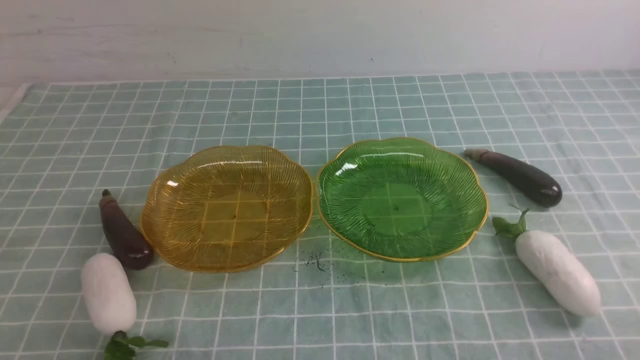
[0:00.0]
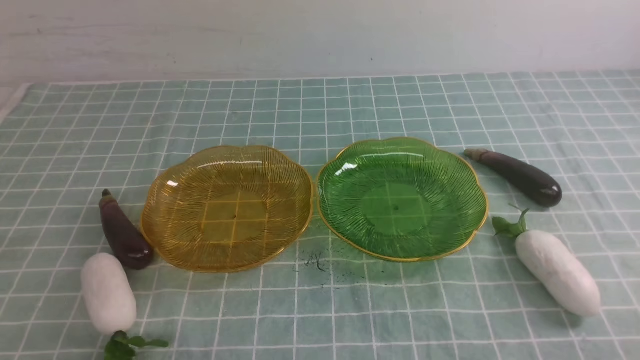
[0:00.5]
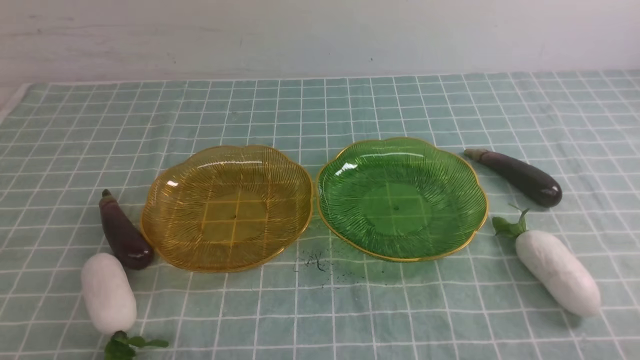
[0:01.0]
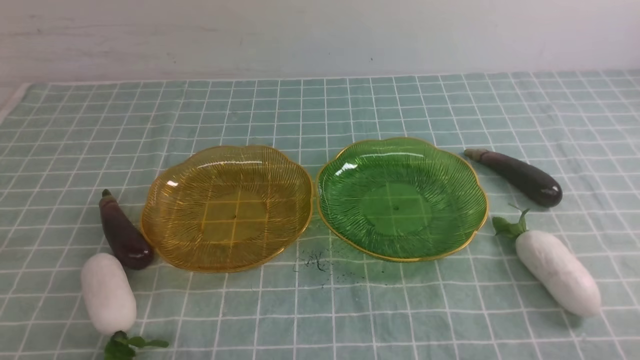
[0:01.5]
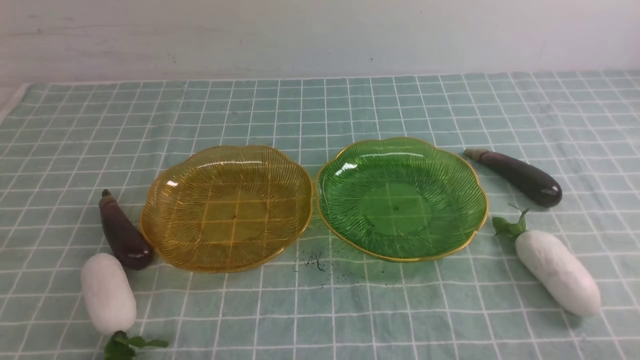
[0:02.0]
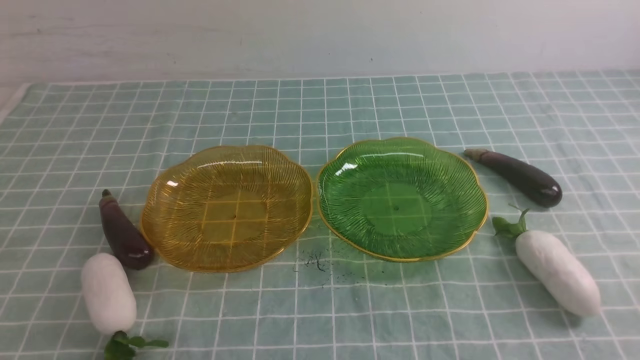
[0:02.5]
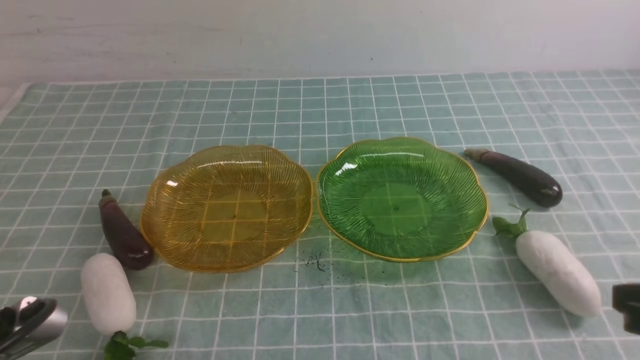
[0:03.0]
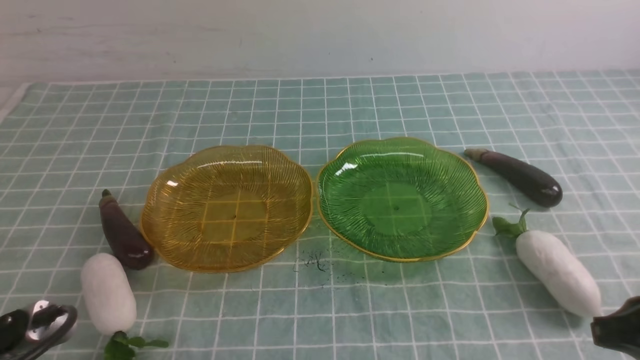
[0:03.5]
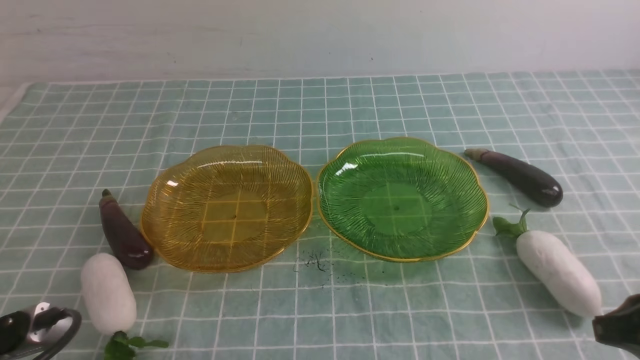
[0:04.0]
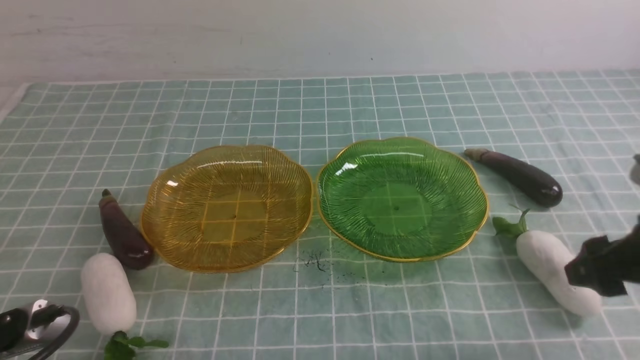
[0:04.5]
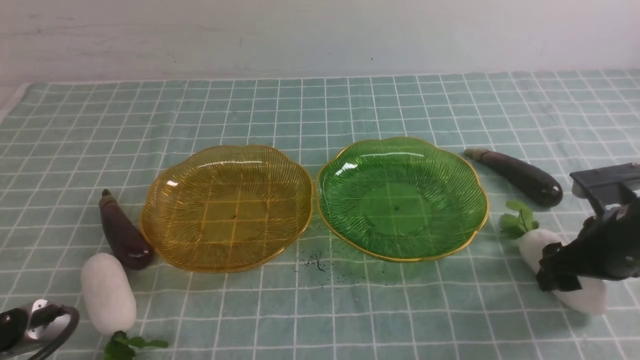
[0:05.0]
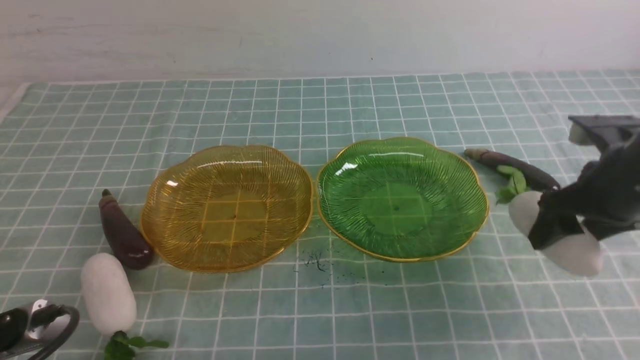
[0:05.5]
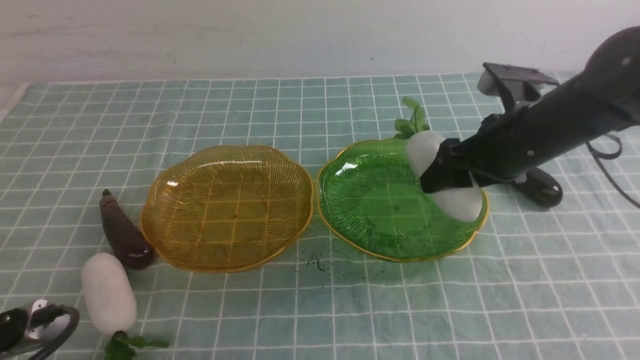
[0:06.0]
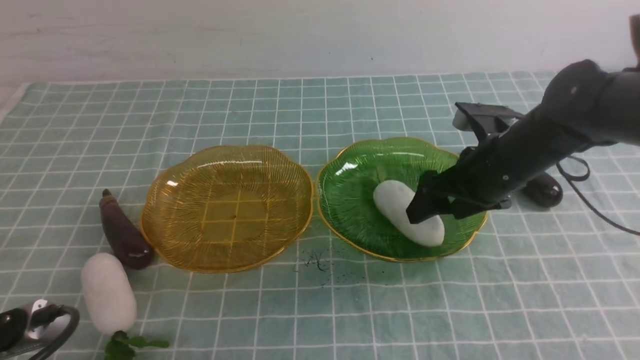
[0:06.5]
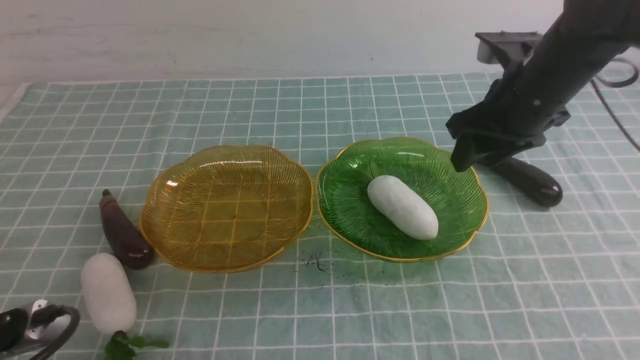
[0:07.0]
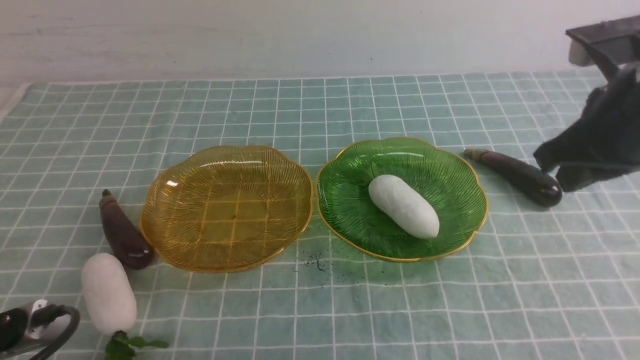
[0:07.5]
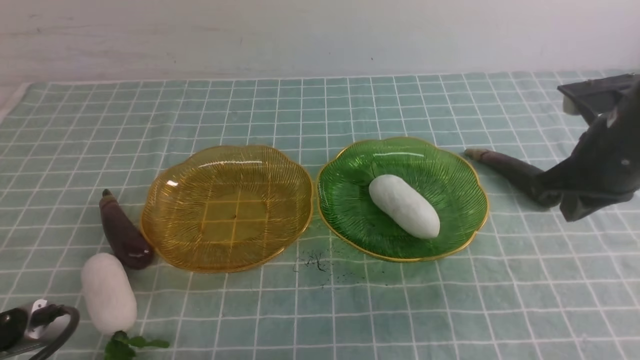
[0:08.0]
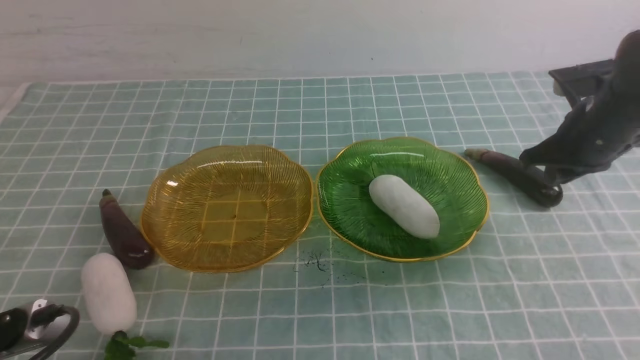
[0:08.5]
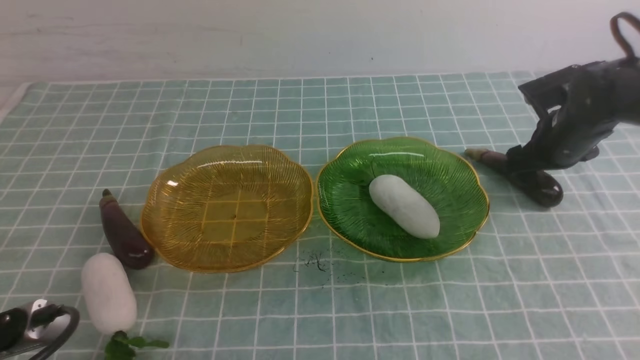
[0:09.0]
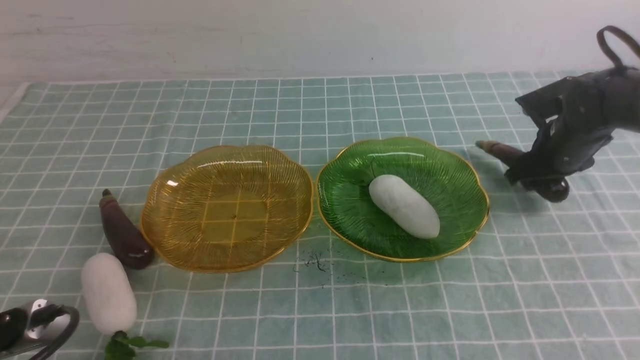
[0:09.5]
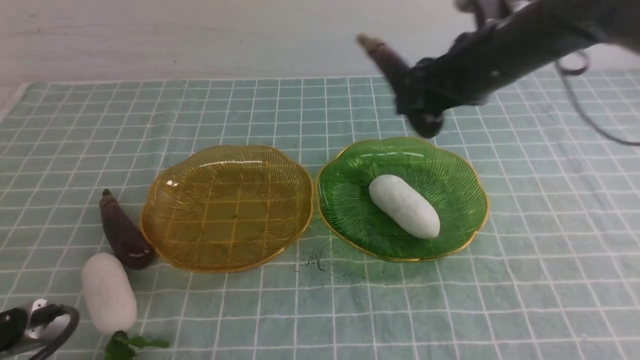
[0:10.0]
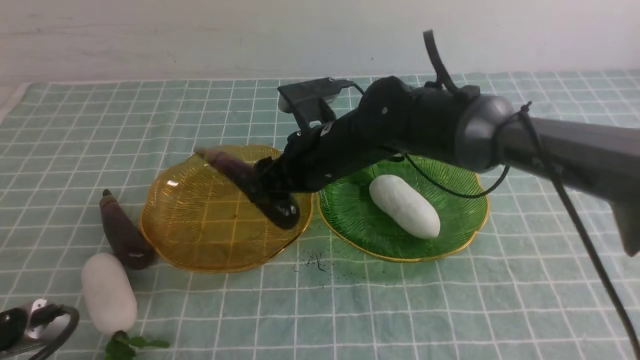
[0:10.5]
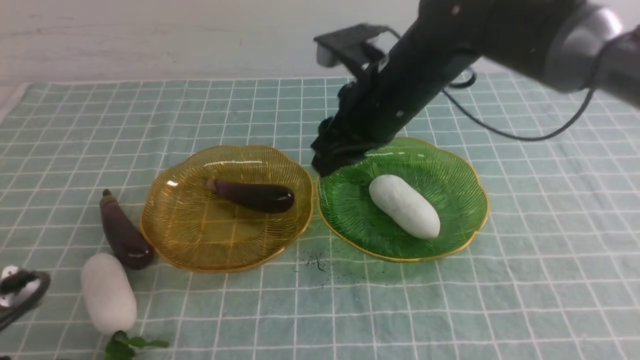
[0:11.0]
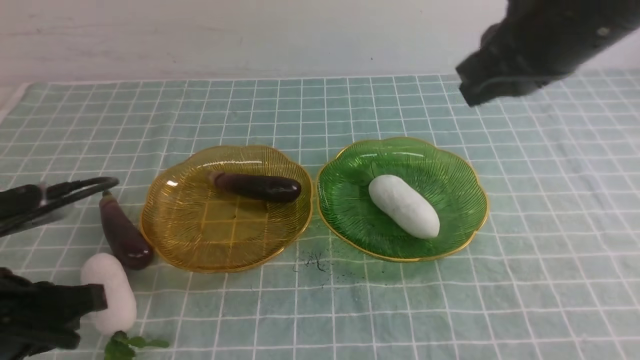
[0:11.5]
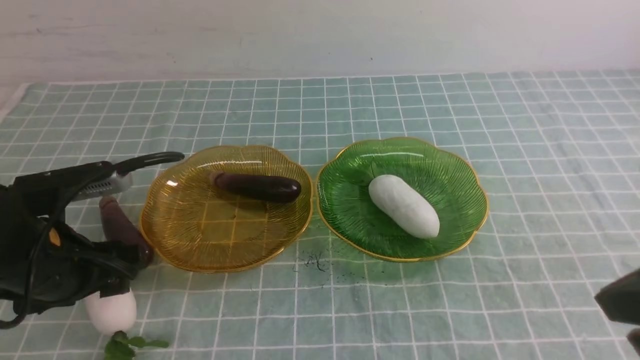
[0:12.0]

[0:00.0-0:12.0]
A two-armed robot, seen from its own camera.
Step, 0:00.0 to 0:06.5: use the right arm to grab a radish and put it into the right plate.
Step, 0:07.0 to 0:10.5: use the right arm to grab an eggplant and put it into the left plate.
0:02.0 to 0:04.0: The left gripper changes place by roughly 5 cm, and opens. Meanwhile the right gripper moves forward and upward, approximately 10 cm.
0:04.0 to 0:06.0: The right gripper moves forward and to the left, about 20 cm, and opens up.
0:06.0 to 0:08.0: The right gripper heads to the right, covering roughly 5 cm, travels upward and back again, some 10 cm each way, and closes up.
0:08.0 to 0:10.0: The right gripper goes some 15 cm to the left and forward, and opens up.
0:10.0 to 0:12.0: The right gripper is displaced backward by some 25 cm, and closes, while the left gripper goes approximately 15 cm forward, and closes, then reopens.

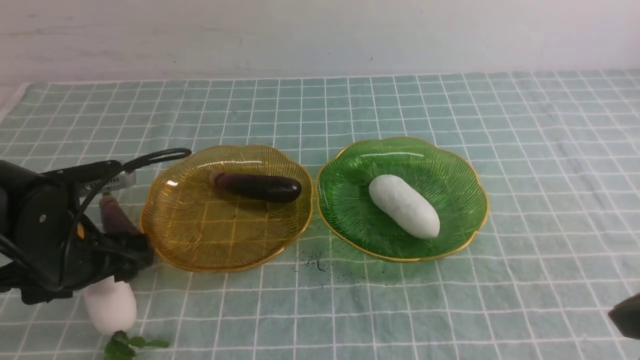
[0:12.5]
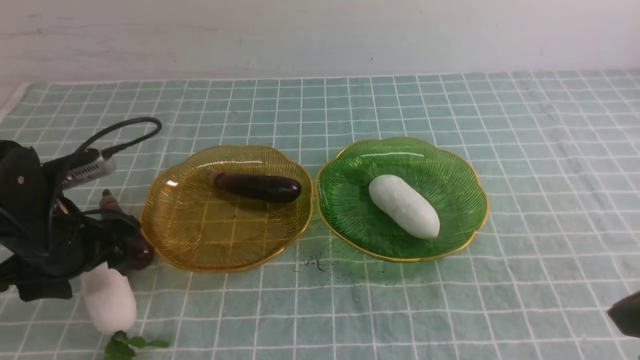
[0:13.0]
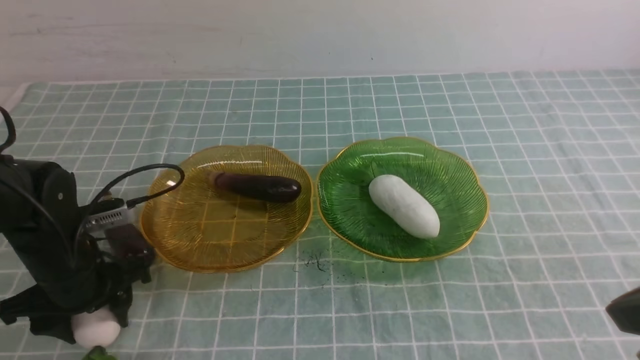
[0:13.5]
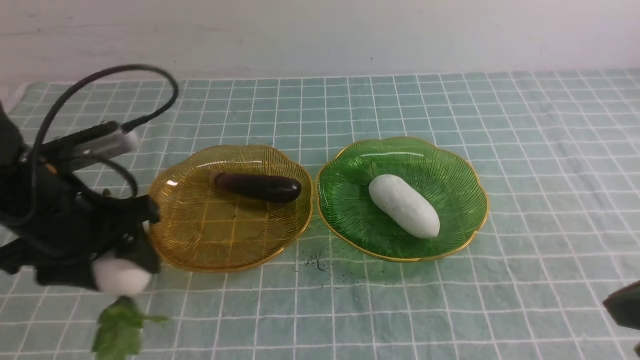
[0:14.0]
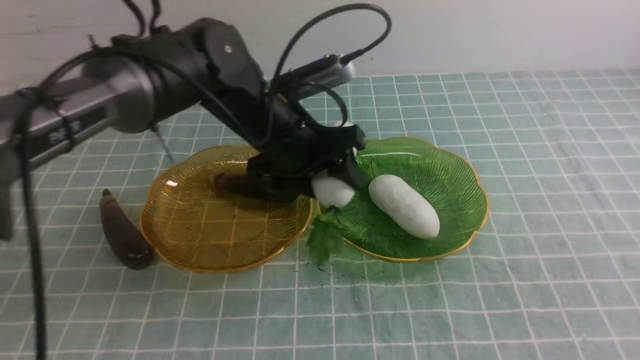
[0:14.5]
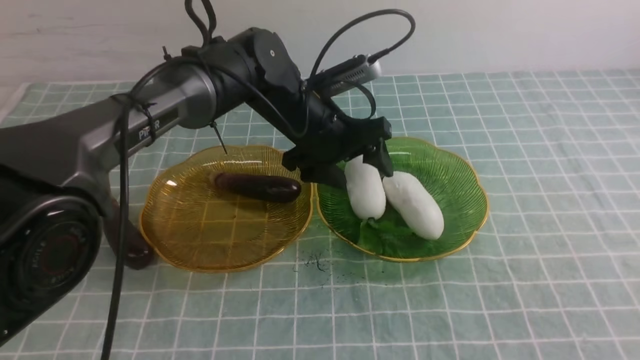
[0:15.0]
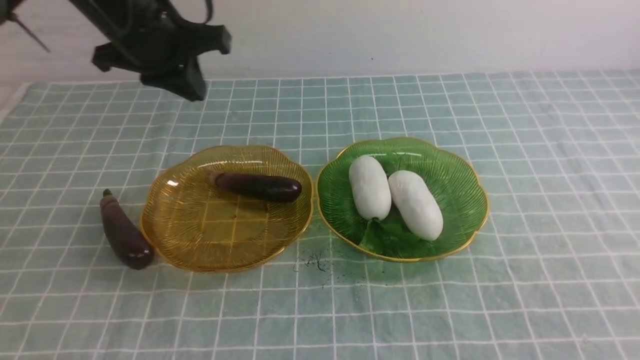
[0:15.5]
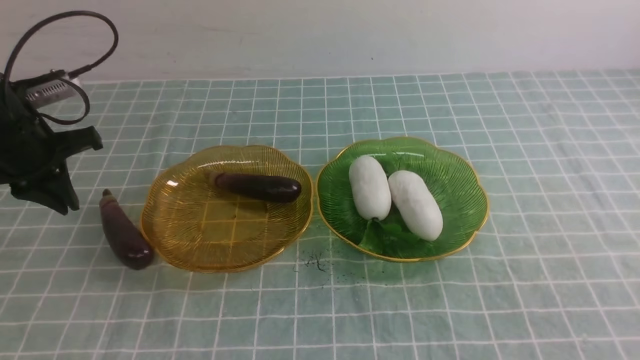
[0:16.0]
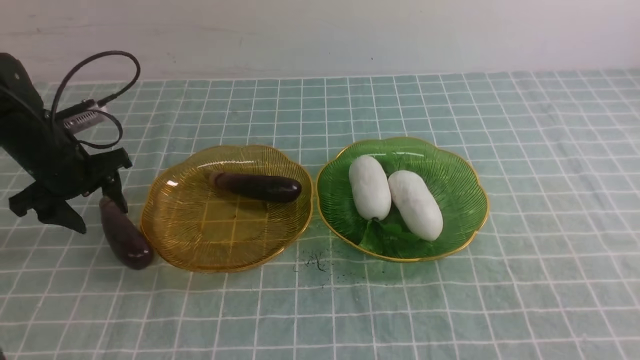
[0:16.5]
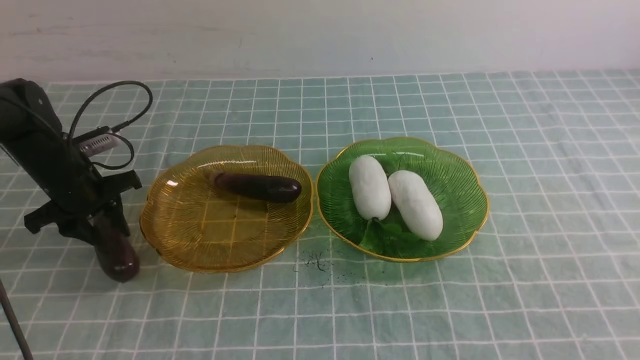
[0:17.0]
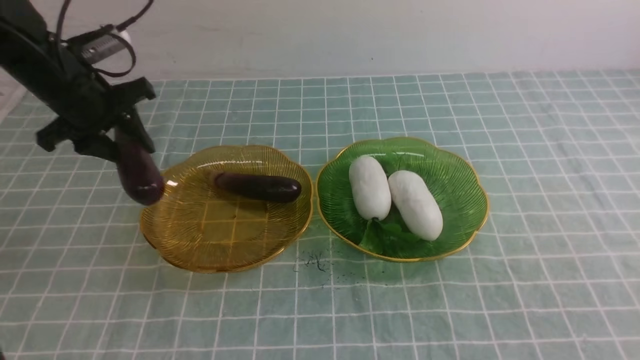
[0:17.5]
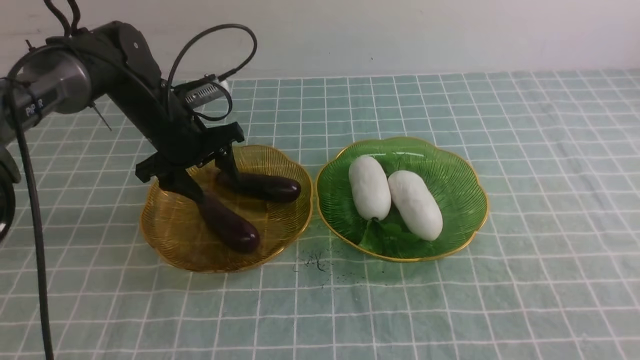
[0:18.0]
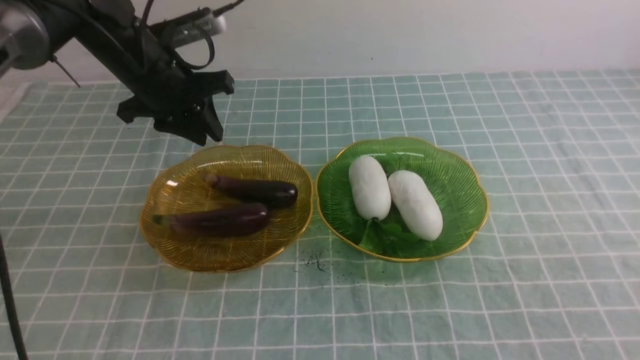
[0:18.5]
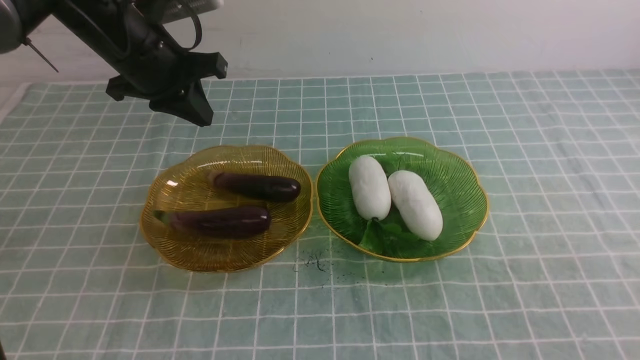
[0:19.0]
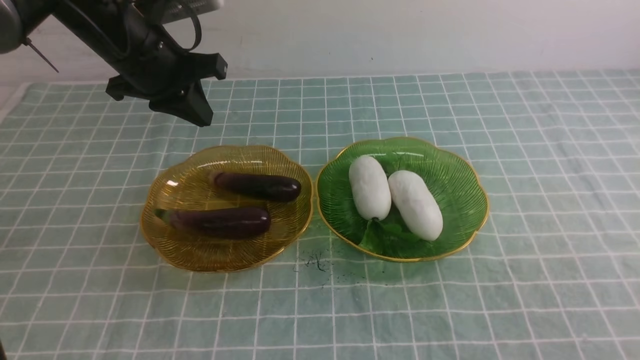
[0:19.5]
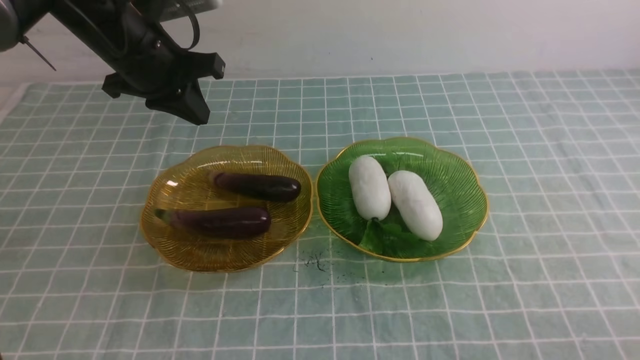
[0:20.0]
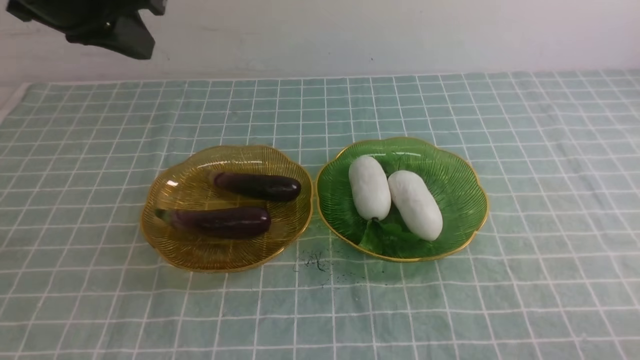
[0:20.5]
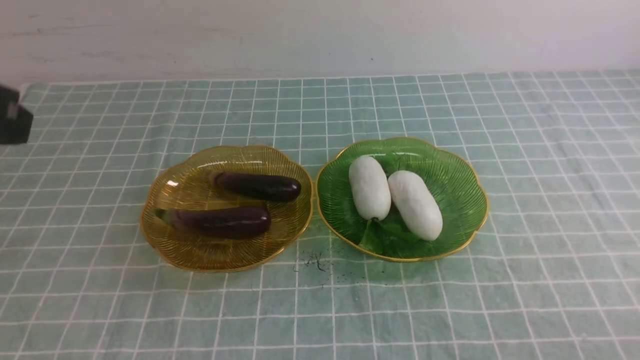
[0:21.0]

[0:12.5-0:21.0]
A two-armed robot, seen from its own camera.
Step, 0:12.5 to 0:15.0: use the left arm to grab a radish and put it into the right plate.
Step, 0:15.5 to 0:18.0: use the left arm to grab an eggplant and put it into the left plate.
0:12.5 to 0:14.5: The right gripper ends up roughly 5 cm from where it was. Meanwhile the left gripper goes about 20 cm to the right and forward.
0:14.5 to 0:16.5: The left gripper moves to the left, some 25 cm, and closes, then reopens.
0:16.5 to 0:19.0: The left gripper shifts approximately 20 cm to the right and upward, and closes its fingers. Meanwhile the right gripper travels downward by some 10 cm.
0:19.0 to 0:21.0: The left gripper travels backward and upward by roughly 30 cm.
